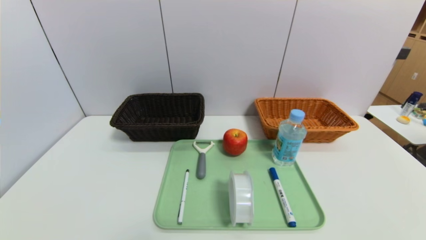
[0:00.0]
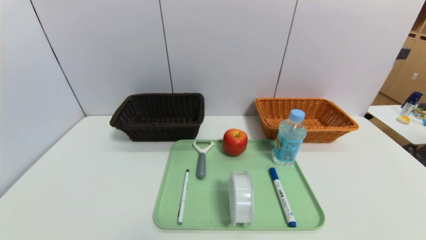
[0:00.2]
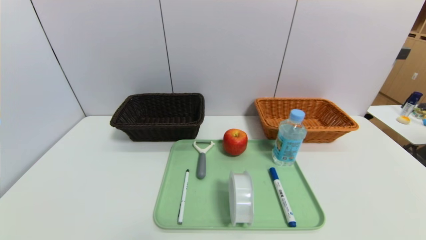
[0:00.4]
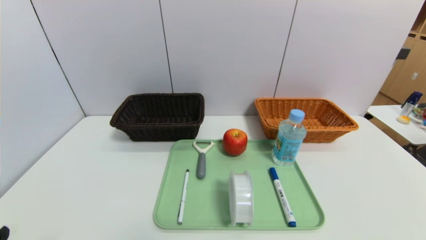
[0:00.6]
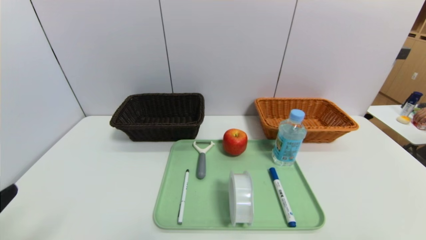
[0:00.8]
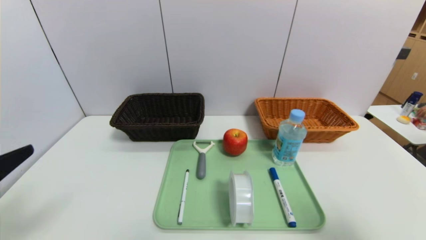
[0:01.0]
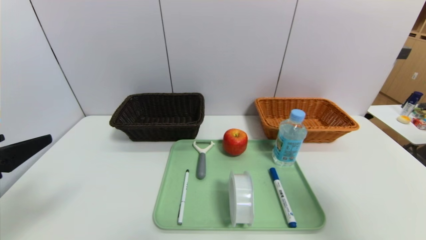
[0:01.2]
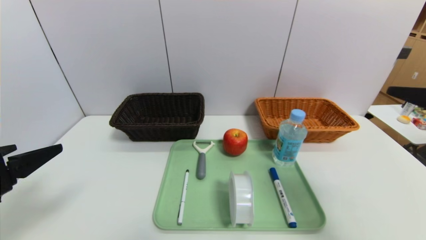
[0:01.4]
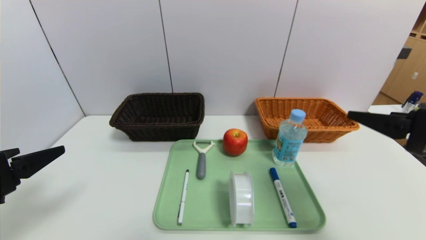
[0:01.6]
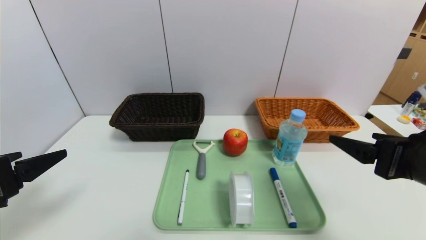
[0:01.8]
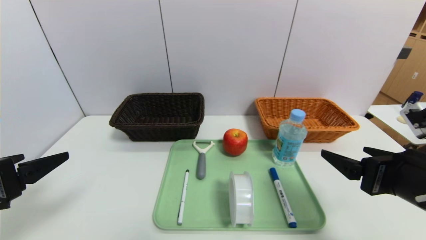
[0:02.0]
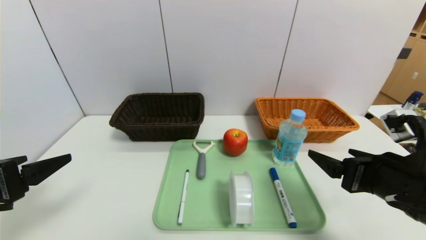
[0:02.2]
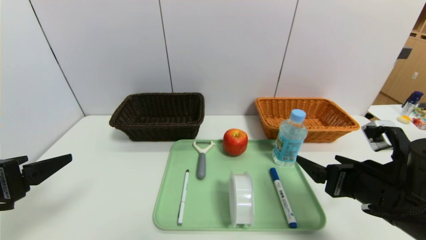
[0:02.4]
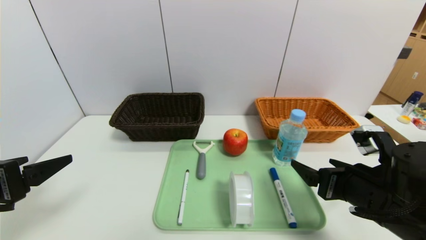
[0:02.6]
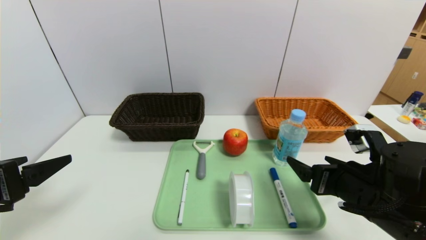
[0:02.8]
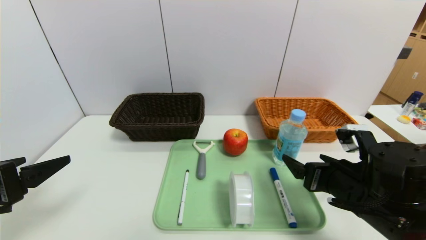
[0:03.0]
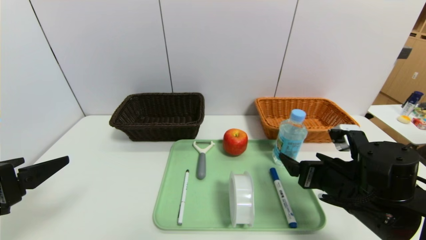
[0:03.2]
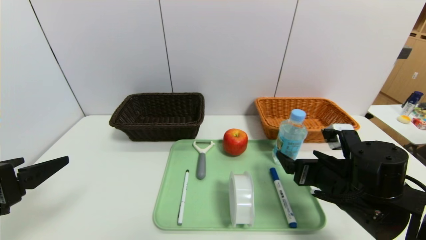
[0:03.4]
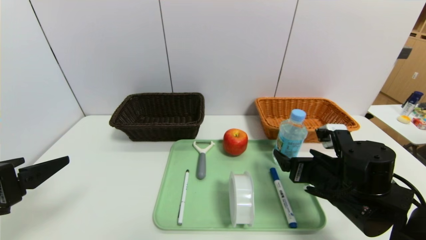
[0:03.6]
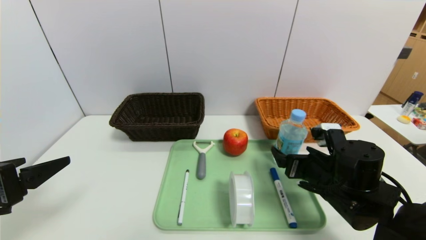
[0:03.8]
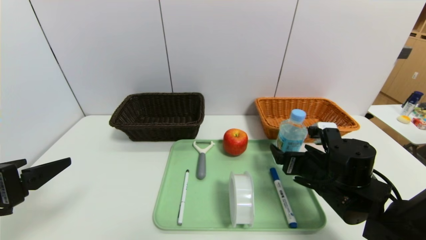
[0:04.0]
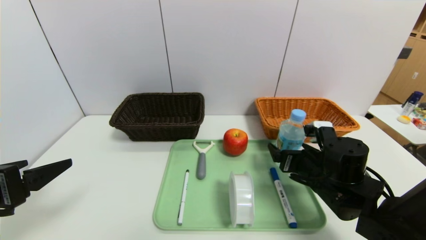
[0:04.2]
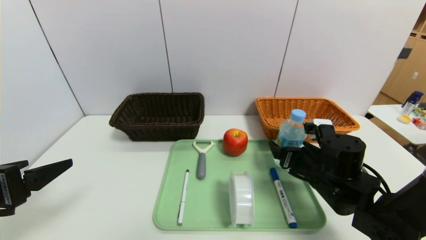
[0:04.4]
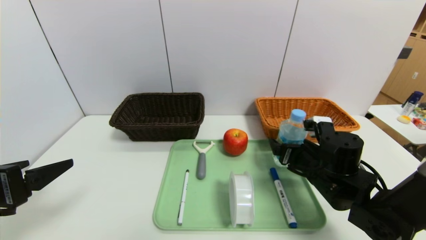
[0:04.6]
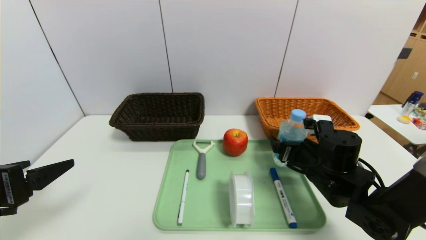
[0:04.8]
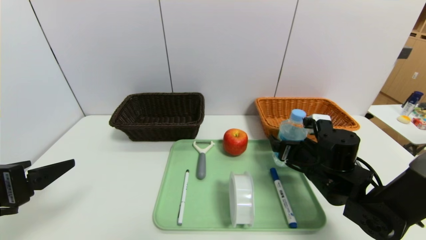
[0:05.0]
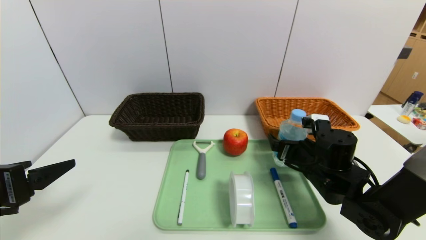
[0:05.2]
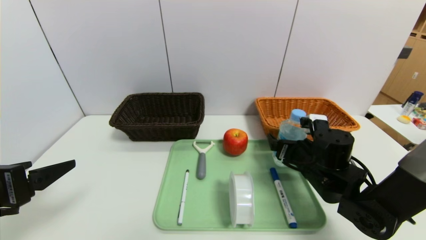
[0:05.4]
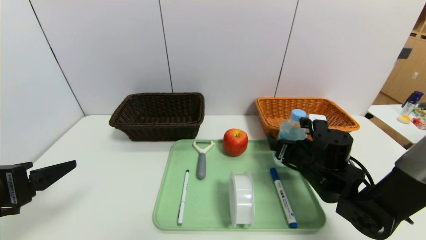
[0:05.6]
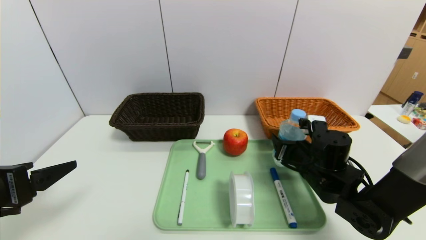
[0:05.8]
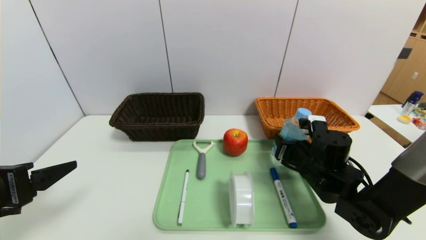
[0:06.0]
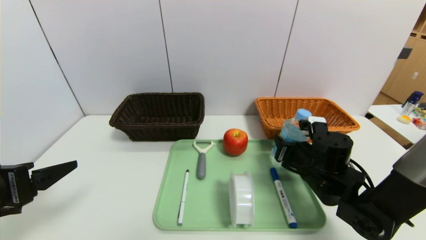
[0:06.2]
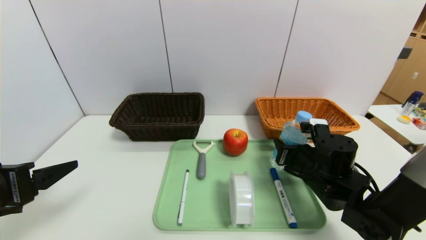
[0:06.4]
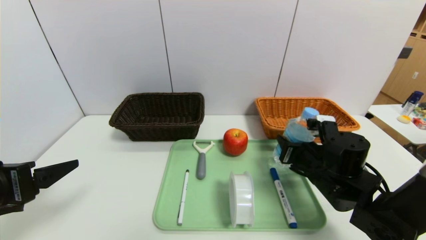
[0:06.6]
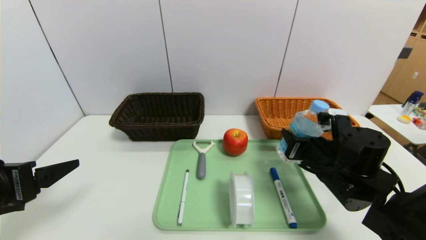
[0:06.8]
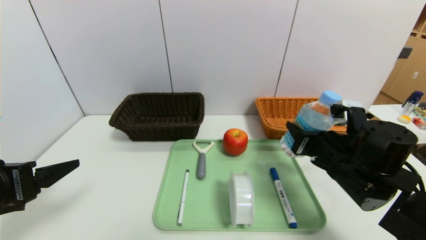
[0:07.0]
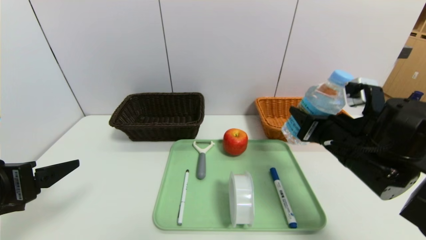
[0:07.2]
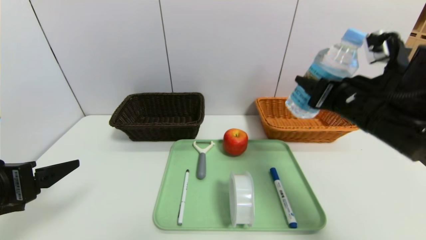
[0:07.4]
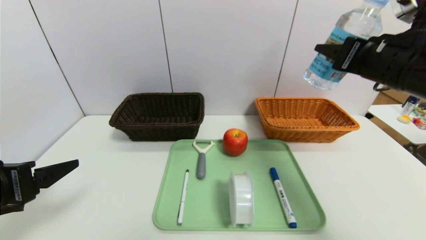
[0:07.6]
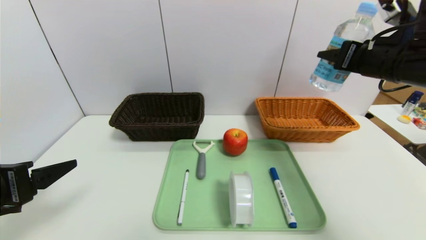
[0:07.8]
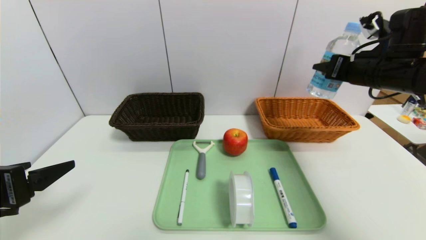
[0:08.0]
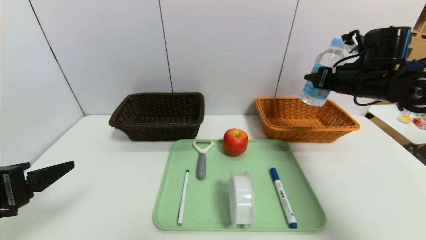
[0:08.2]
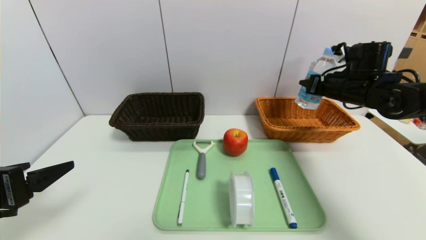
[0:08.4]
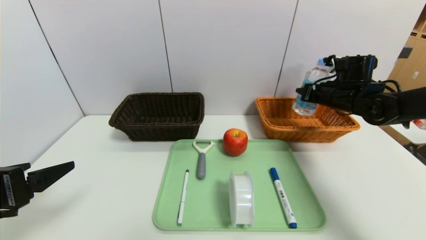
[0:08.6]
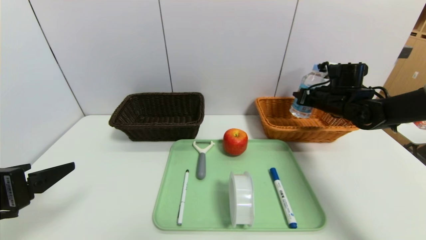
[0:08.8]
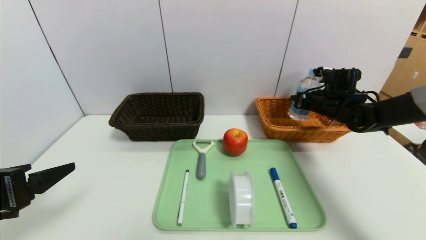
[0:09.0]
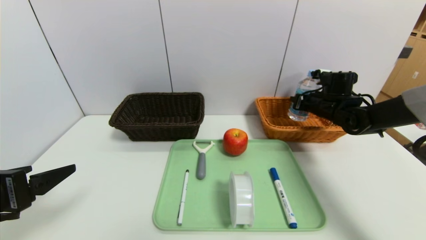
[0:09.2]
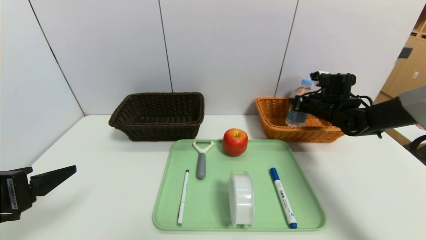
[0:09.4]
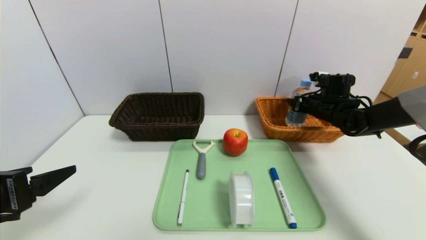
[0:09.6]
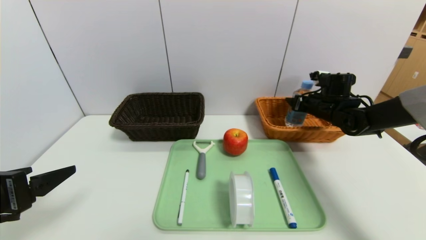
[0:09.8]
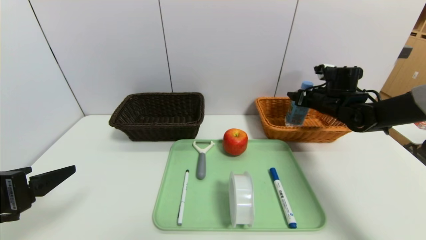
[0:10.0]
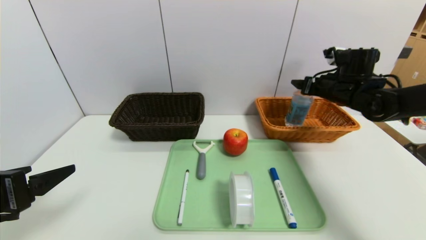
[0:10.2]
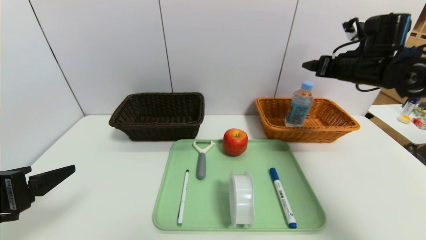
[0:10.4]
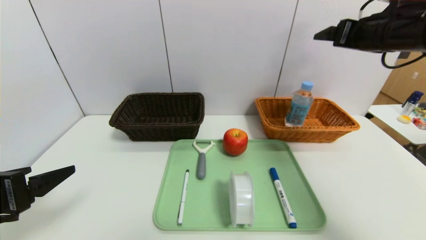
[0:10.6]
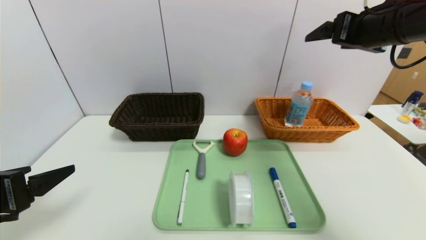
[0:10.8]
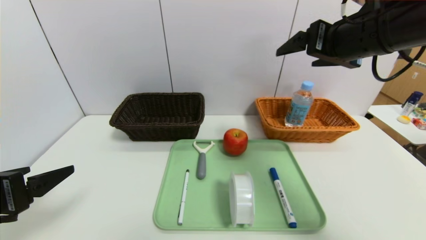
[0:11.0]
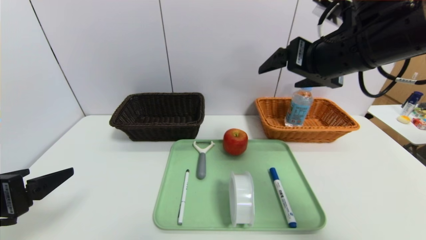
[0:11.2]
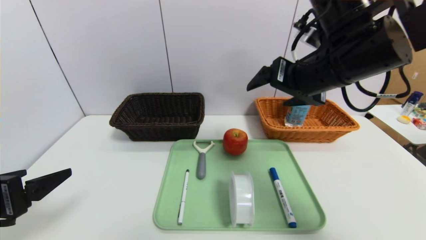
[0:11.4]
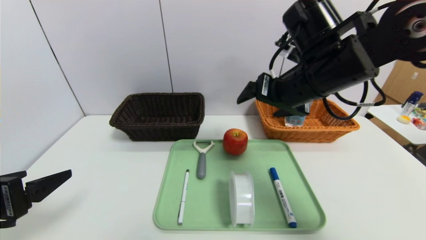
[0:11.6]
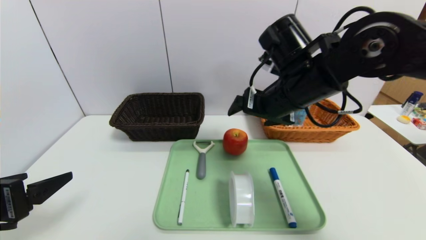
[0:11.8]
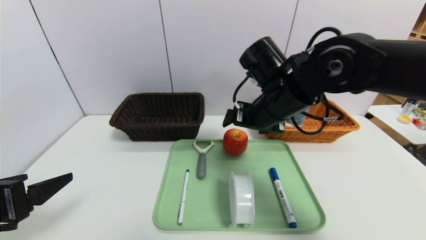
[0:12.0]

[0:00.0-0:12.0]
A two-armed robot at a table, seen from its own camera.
Task of the whole recording: place the food in the right basket with the right gripper, and place the non food items in the left basket with the left gripper.
Step, 0:00.0 to 0:09.8: Grasp the soda water and put it in the right basket.
0:00.0 to 0:01.6: The two grippers go about 25 cm upward and forward.
0:01.6 to 0:03.0: The right gripper is displaced downward, forward and to the left by approximately 15 cm.
0:03.0 to 0:04.4: The right gripper goes approximately 5 cm forward.
0:04.4 to 0:06.0: The right gripper closes its fingers.
0:06.0 to 0:07.6: The right gripper travels upward by approximately 20 cm.
0:07.6 to 0:09.0: The right gripper goes roughly 25 cm forward and downward.
0:09.0 to 0:10.4: The right gripper travels upward and backward by approximately 15 cm, and opens.
0:10.4 to 0:12.0: The right gripper travels to the left by about 20 cm.

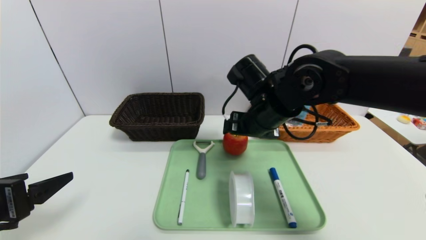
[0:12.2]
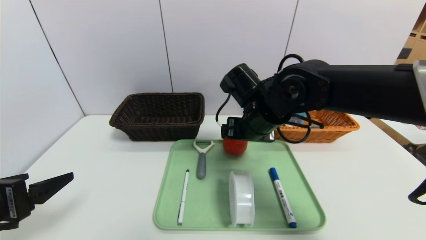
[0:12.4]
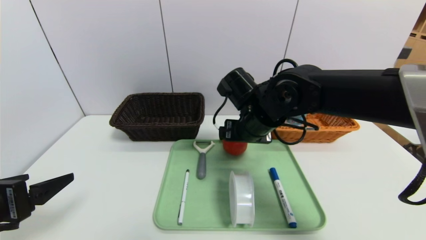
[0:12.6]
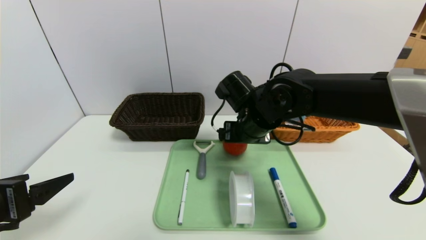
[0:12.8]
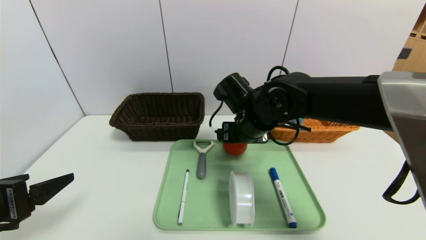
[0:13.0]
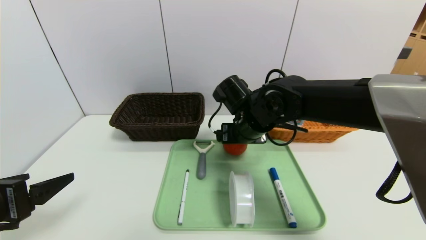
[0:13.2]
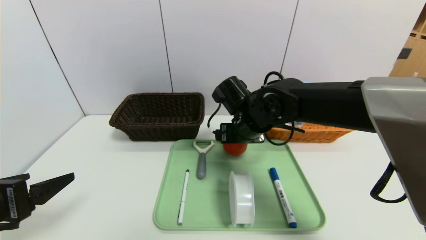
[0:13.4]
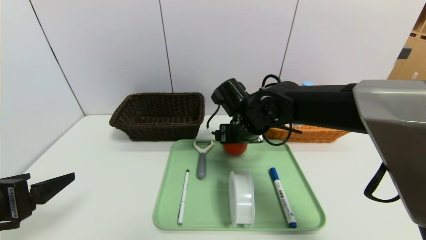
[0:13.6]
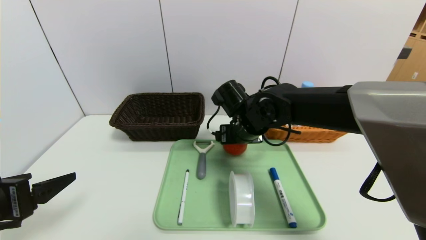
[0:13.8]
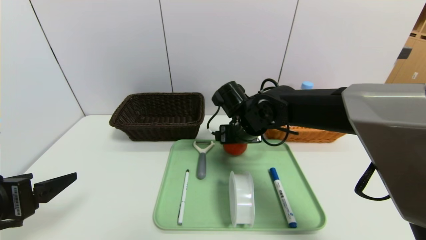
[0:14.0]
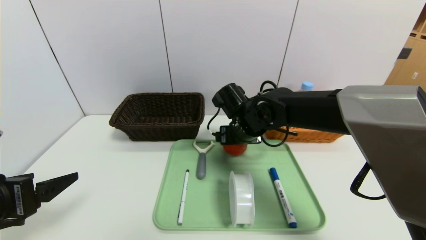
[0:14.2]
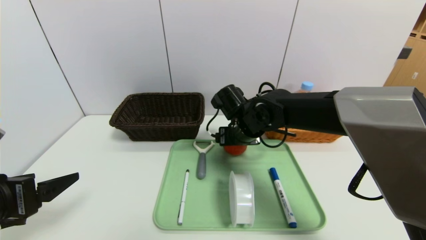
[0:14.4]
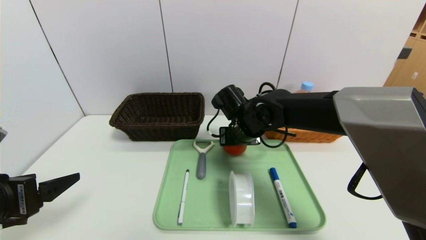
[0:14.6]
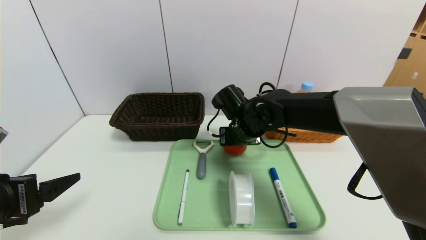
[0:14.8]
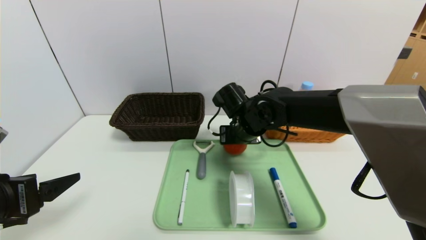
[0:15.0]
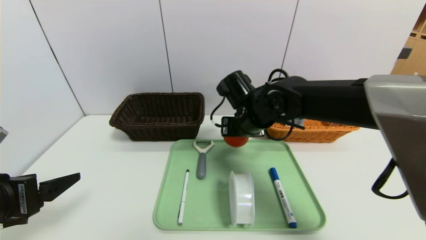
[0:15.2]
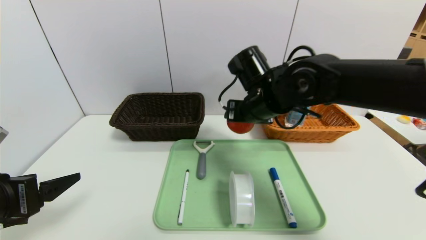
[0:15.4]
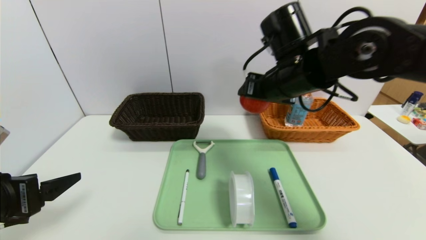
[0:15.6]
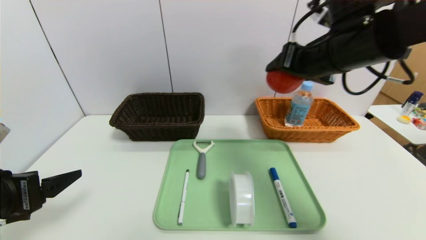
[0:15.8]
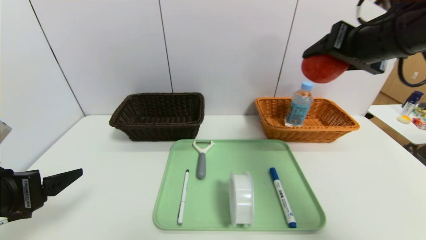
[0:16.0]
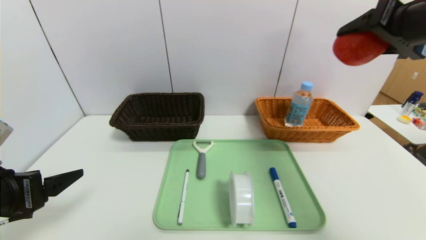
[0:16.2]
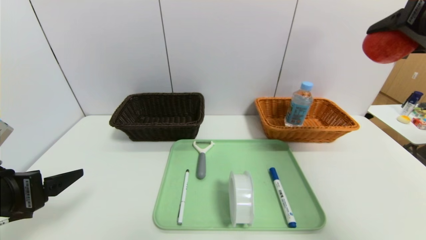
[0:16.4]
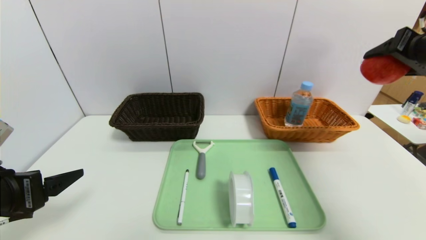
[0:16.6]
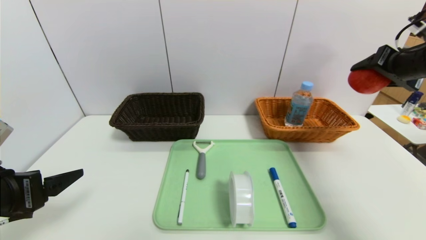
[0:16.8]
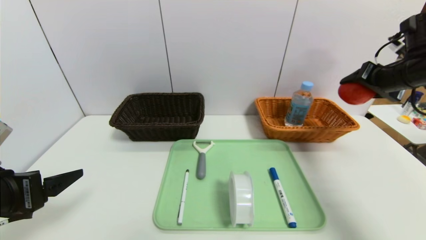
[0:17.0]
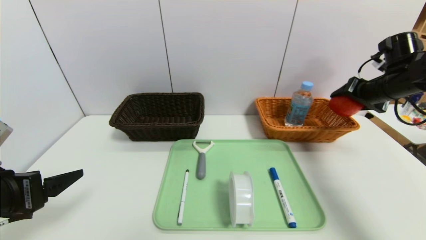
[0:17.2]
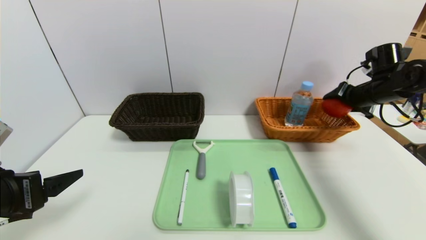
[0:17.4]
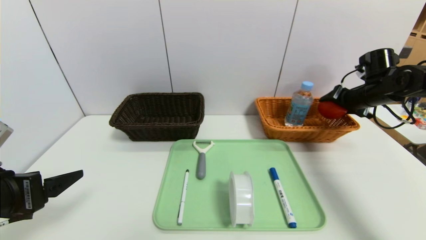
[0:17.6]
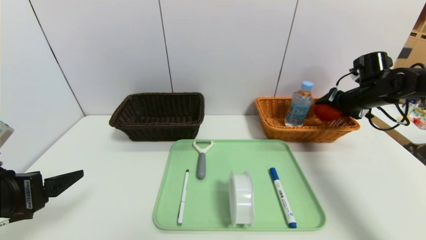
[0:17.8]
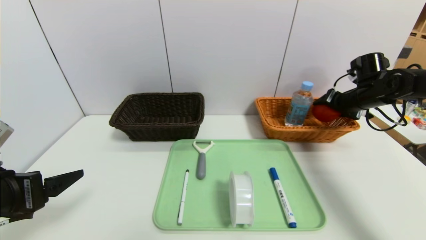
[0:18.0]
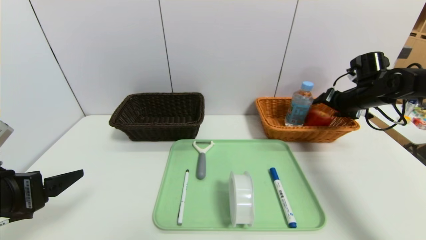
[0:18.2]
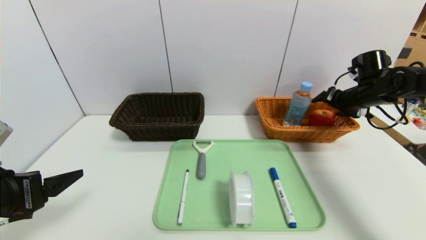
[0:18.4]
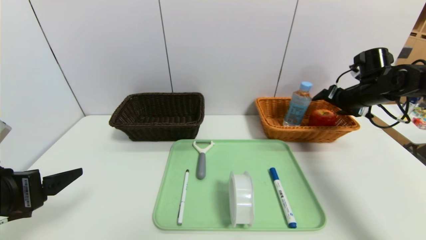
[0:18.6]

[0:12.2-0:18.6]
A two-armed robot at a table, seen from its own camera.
Task of the whole recording: place the food in the right basket with the right gripper, and place the non food items in the left basket with the left gripper.
Step, 0:12.2 to 0:18.4: Grasp the apple and put it in the right basket.
0:12.2 to 0:13.8: The right gripper travels downward by about 5 cm.
0:13.8 to 0:15.4: The right gripper moves upward, about 5 cm.
0:15.4 to 0:17.0: The right gripper shifts roughly 30 cm to the right.
0:17.0 to 0:18.6: The right gripper heads downward and forward, covering approximately 10 cm.
